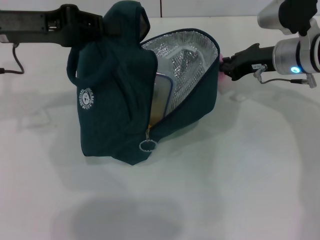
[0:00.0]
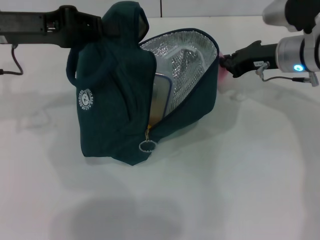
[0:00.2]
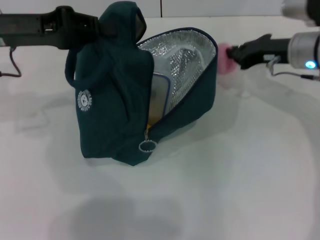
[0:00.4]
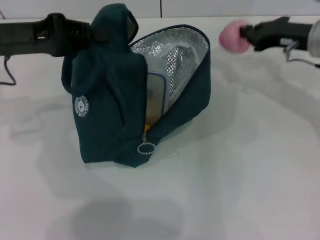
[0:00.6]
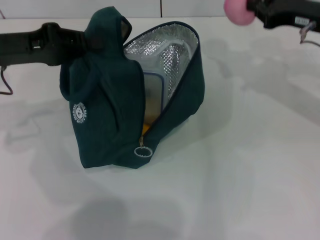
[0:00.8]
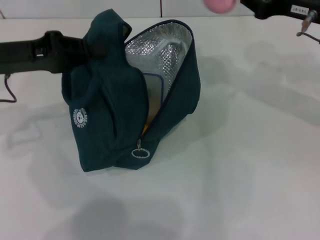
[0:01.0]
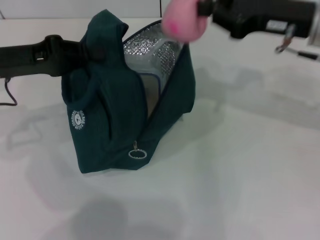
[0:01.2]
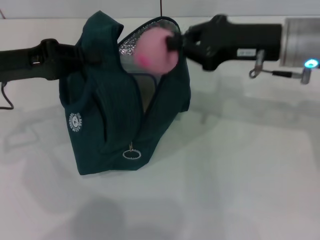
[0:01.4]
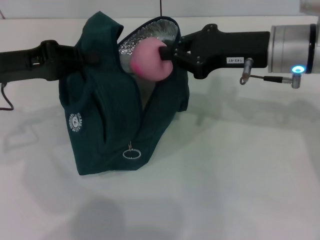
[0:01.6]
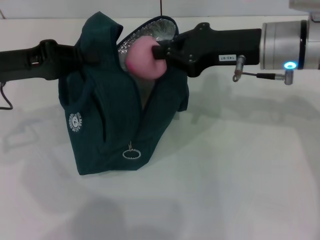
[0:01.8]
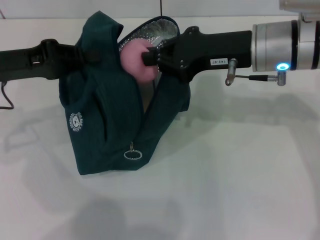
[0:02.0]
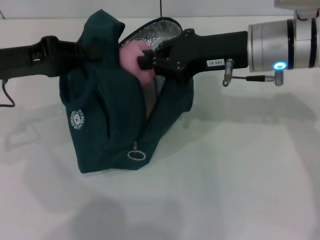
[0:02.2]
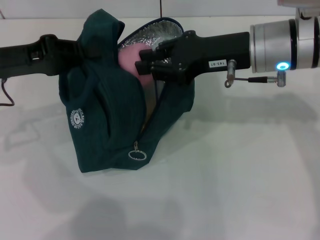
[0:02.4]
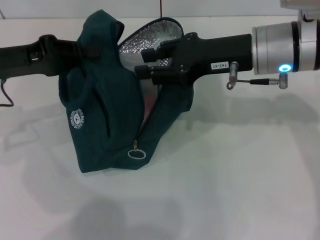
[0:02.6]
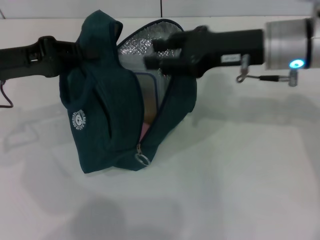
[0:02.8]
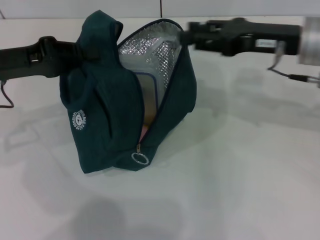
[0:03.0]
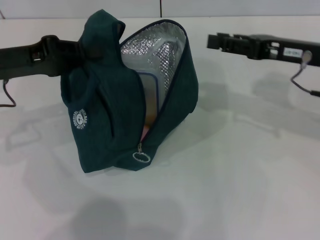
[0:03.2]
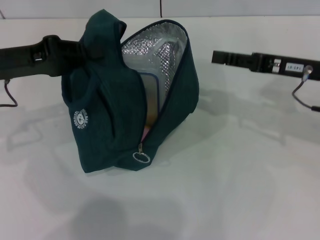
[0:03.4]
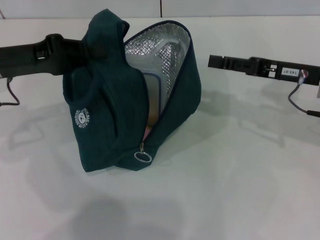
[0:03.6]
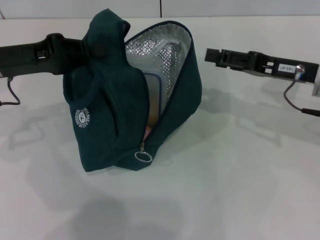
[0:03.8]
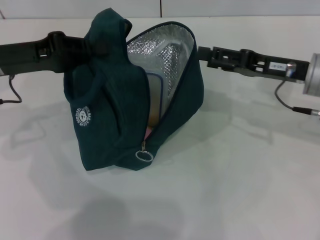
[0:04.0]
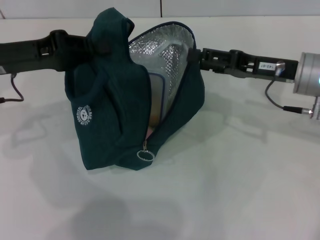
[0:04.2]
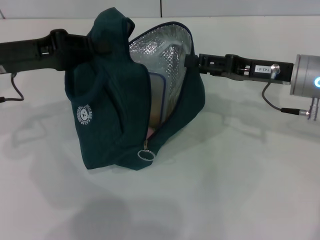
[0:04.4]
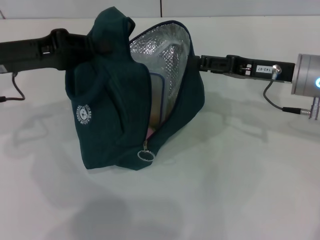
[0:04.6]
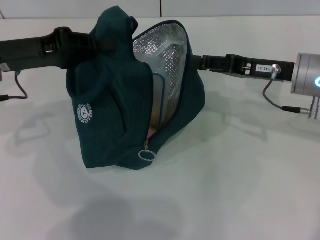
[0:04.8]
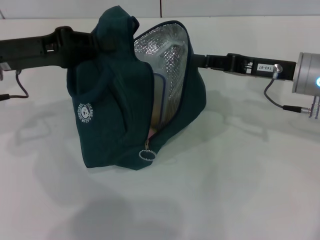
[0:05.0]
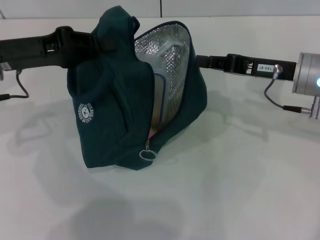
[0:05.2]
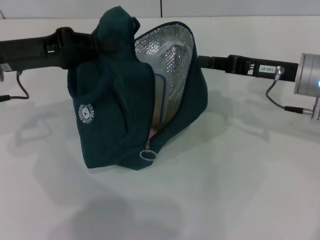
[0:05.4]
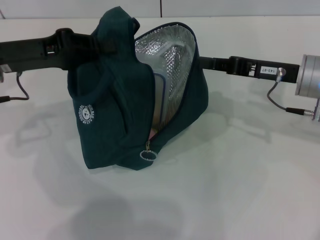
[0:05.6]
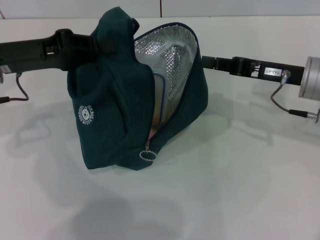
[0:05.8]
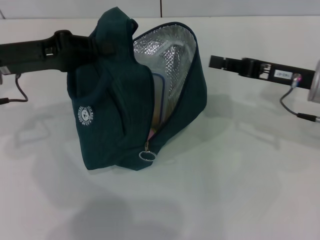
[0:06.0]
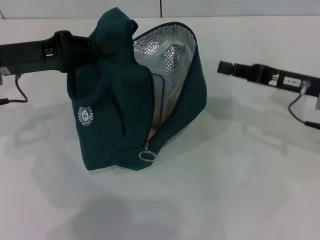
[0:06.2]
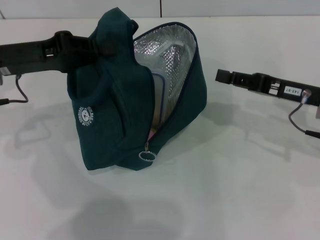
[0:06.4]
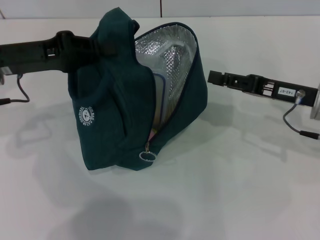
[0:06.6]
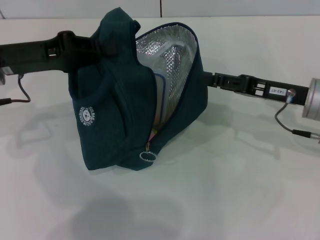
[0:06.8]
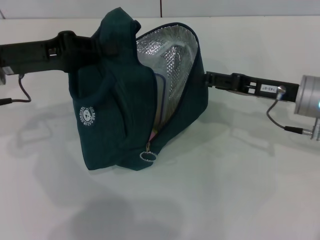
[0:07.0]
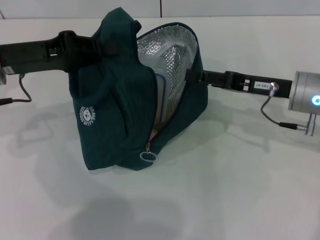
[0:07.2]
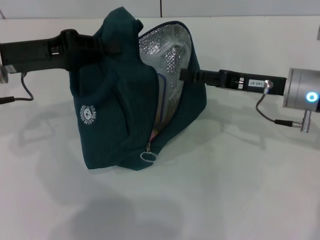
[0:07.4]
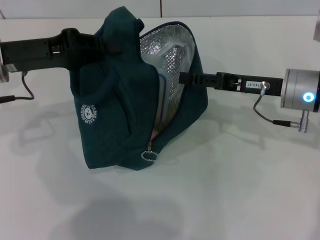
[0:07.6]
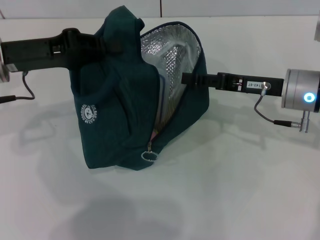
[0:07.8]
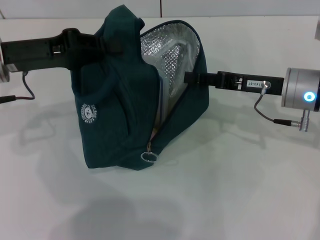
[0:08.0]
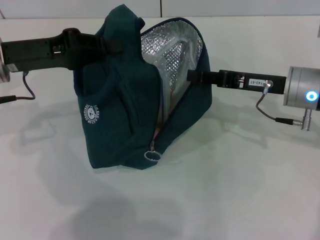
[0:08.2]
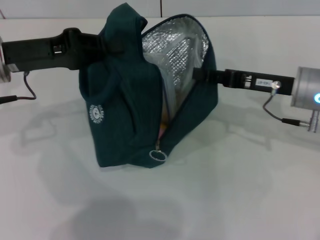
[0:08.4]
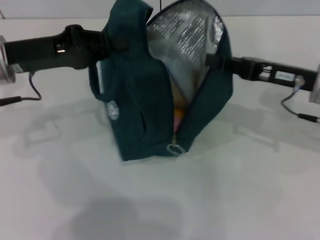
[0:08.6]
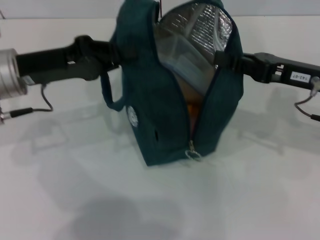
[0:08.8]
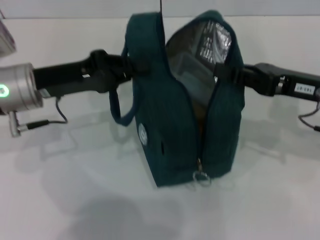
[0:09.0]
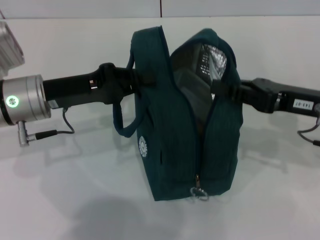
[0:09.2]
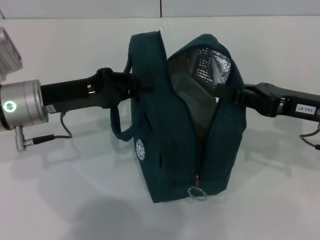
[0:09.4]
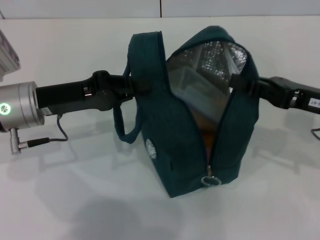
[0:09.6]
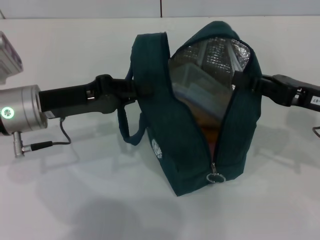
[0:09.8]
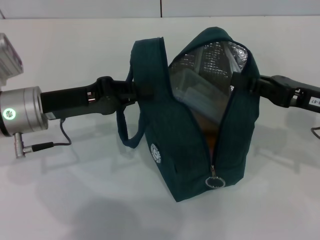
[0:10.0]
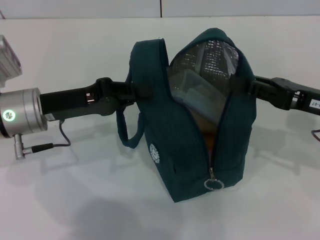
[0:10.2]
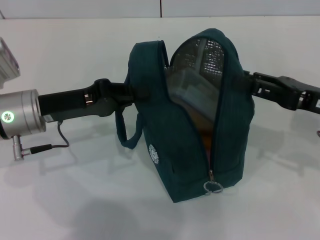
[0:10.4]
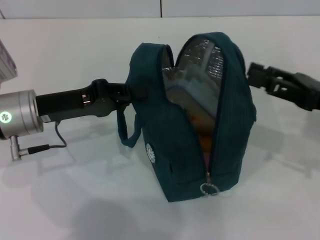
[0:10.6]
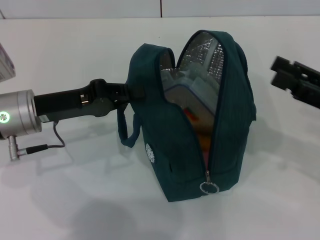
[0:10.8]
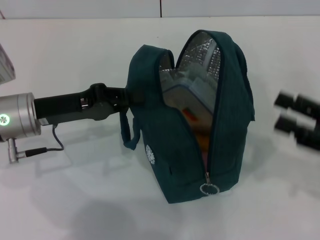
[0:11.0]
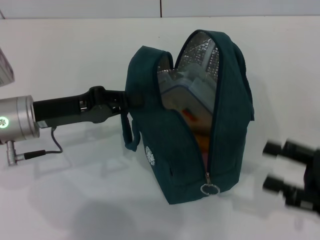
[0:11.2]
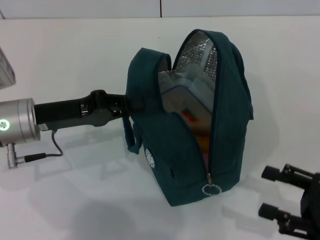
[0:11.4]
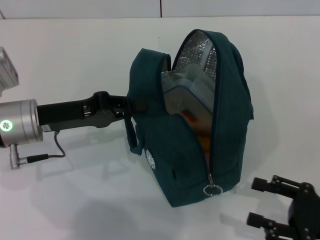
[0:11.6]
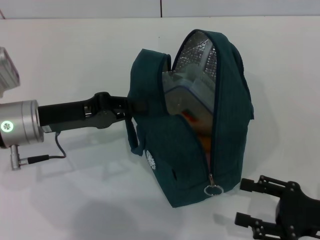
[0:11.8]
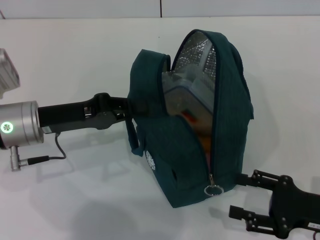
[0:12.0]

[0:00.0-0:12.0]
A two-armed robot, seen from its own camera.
Step, 0:00.2 to 0:02.8: Secure the lunch bag with your left hand.
Step, 0:03.0 to 0:10.6: Hold the lunch bag with your right hand.
0:00.0 to 0:01.6: The right gripper heads upward and backward, covering roughly 10 cm. Meanwhile the left gripper changes place by approximately 5 cm.
0:01.6 to 0:03.0: The right gripper opens its fingers.
0:03.0 to 0:04.4: The right gripper shifts roughly 5 cm downward, and opens its fingers.
0:04.4 to 0:06.0: The right gripper closes.
0:06.0 to 0:07.6: The right gripper opens up.
0:07.6 to 0:09.0: The left gripper ends up some 5 cm from where it was. The right gripper changes place by roughly 5 cm, and closes its fingers.
0:10.4 to 0:12.0: The right gripper goes some 15 cm backward and downward, and opens up.

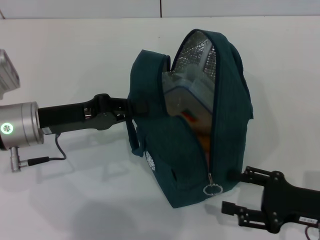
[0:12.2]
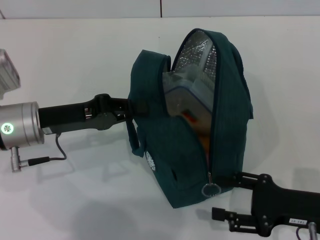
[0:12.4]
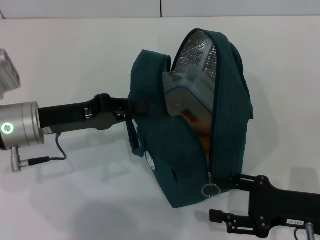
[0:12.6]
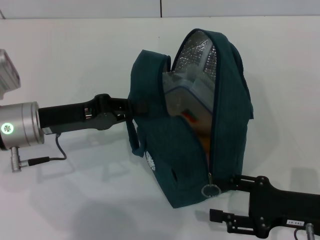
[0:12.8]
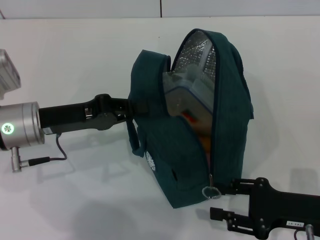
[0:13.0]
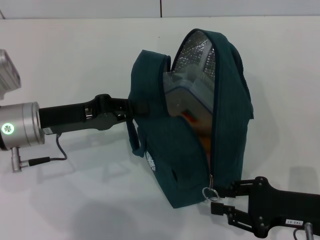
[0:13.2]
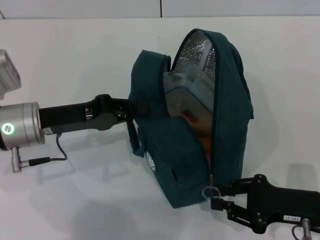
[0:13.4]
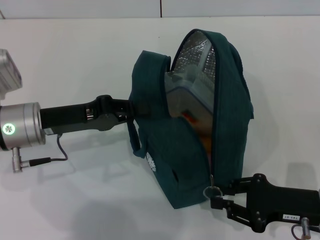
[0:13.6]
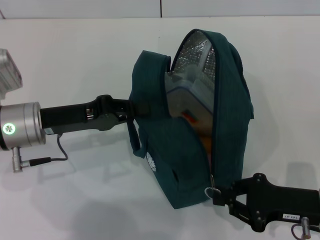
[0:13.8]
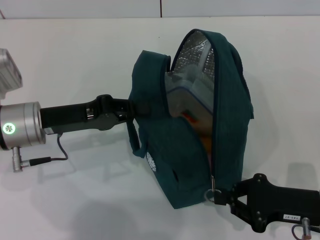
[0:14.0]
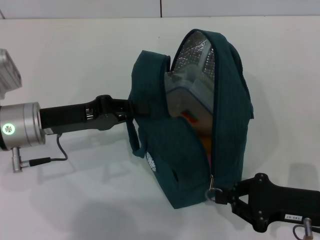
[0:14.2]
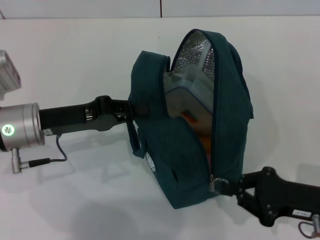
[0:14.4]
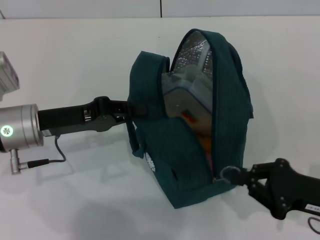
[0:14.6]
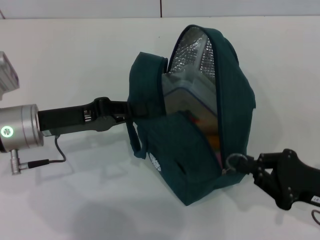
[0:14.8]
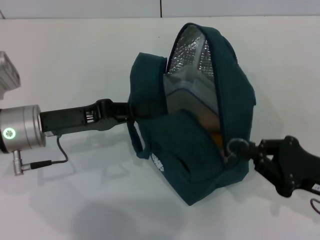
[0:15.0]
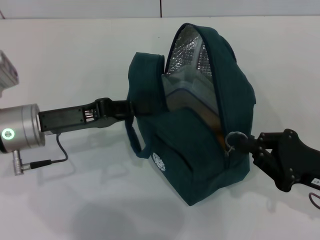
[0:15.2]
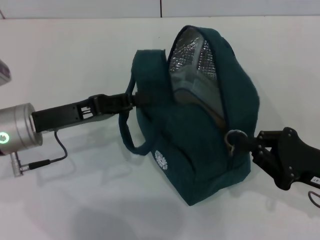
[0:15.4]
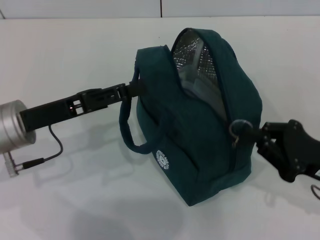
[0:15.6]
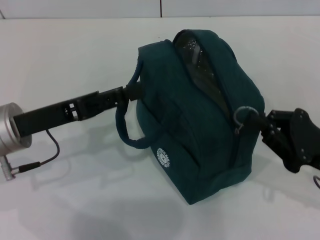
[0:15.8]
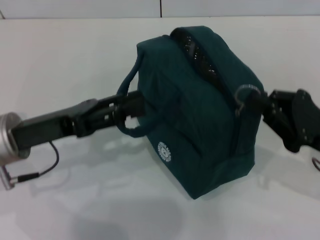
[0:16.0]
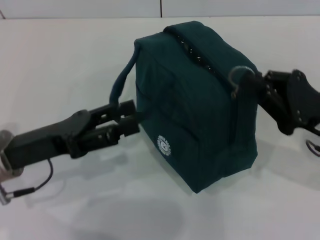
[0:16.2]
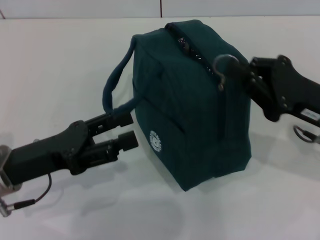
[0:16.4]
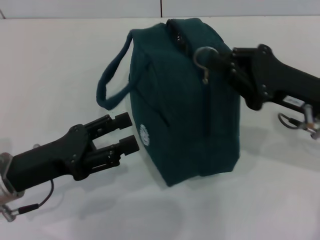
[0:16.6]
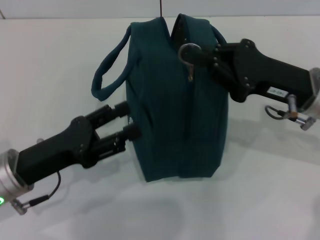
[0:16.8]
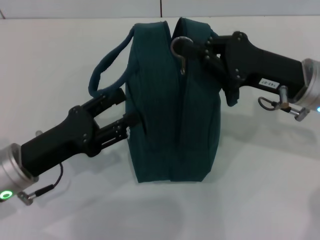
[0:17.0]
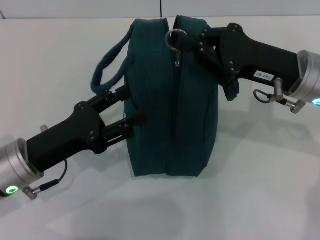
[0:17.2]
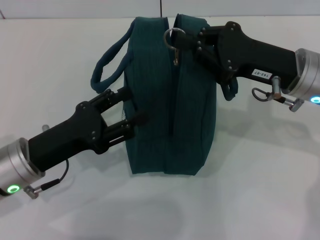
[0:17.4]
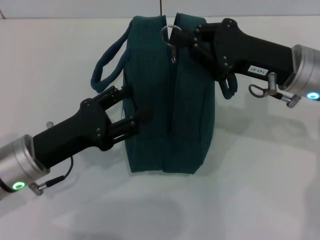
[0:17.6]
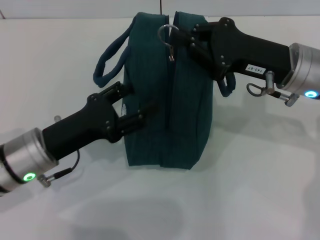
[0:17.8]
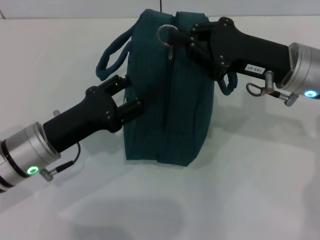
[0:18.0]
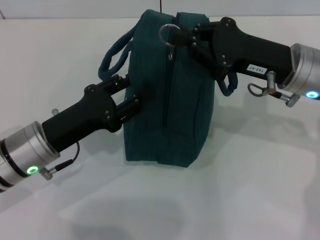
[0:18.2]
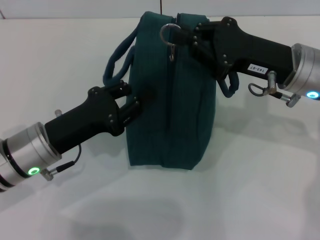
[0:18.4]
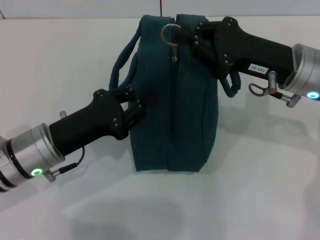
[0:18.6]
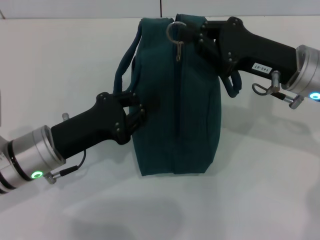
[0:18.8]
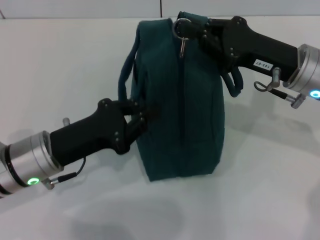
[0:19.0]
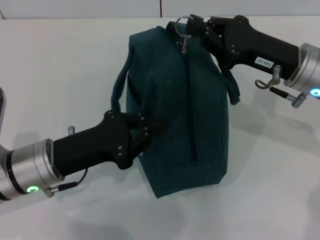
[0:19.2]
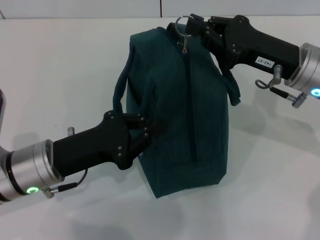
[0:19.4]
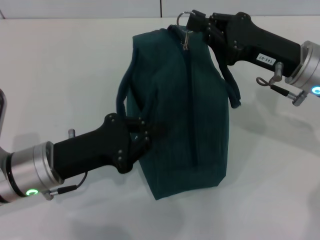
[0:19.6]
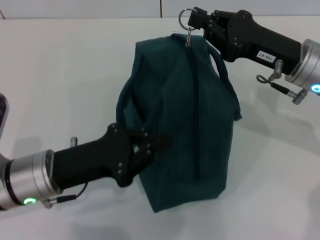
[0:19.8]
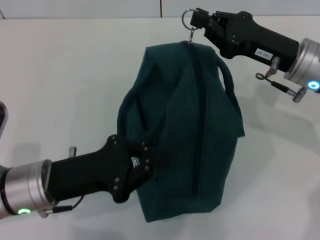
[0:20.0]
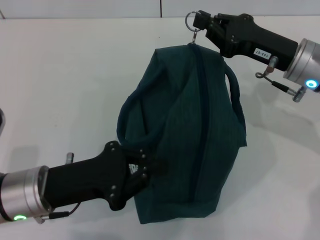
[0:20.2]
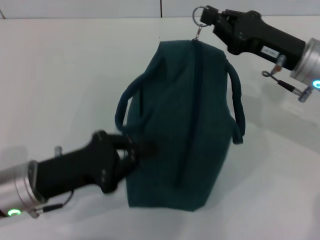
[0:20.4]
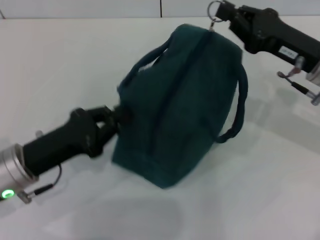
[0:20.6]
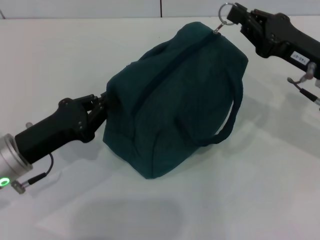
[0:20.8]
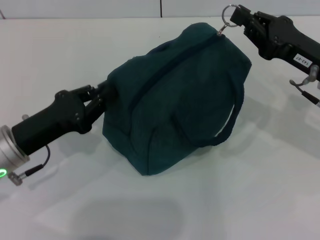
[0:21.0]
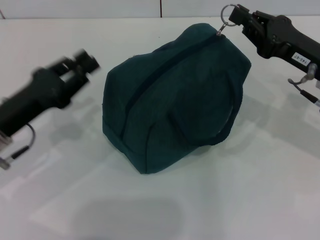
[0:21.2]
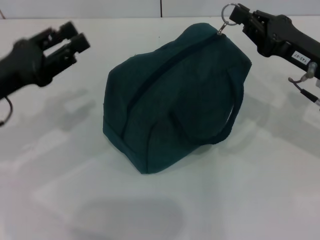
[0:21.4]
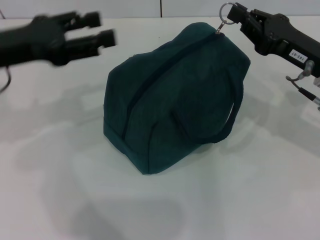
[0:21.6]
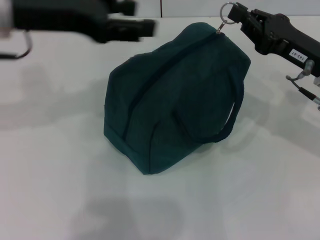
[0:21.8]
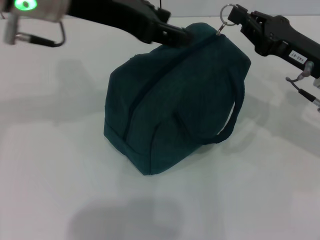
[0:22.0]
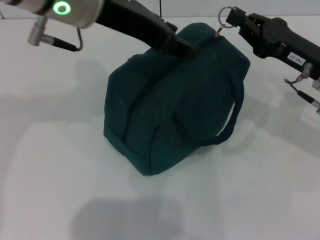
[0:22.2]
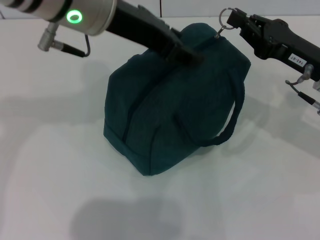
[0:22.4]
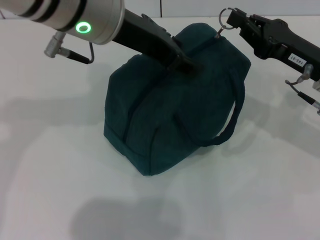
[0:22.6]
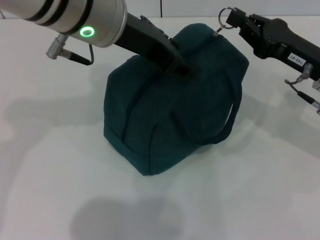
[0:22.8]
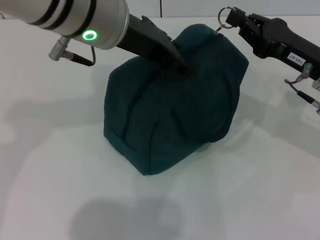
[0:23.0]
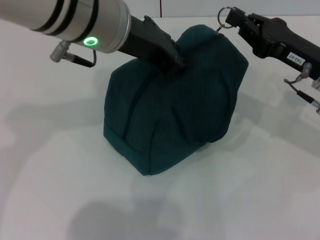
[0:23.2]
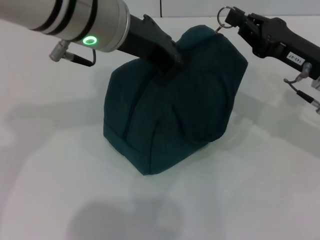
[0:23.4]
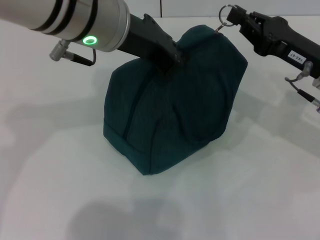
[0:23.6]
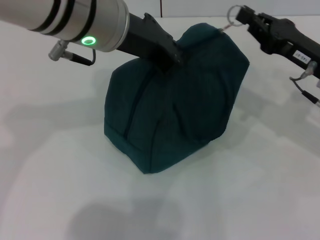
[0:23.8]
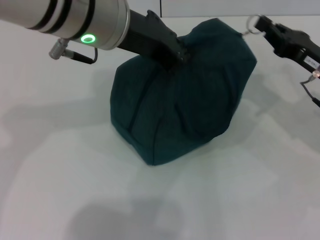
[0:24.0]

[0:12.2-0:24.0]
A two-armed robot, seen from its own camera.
Step, 0:12.2 to 0:15.6: Hold the lunch bag with your left hand.
0:12.2 to 0:13.6: The right gripper closes its fingers.
0:15.2 to 0:16.6: The left gripper shifts roughly 5 cm backward, and opens its fingers; the right gripper shifts roughly 10 cm forward and upward.
0:16.6 to 0:18.2: The right gripper ends up about 5 cm from where it was. Meanwhile the left gripper changes place by some 5 cm.
0:18.2 to 0:19.6: The left gripper closes up.
0:21.0 to 0:22.6: The left gripper shifts about 25 cm upward and to the right, and opens its fingers.
0:22.6 to 0:24.0: The left gripper closes its fingers.
